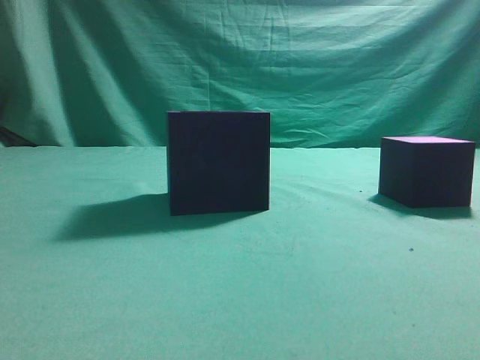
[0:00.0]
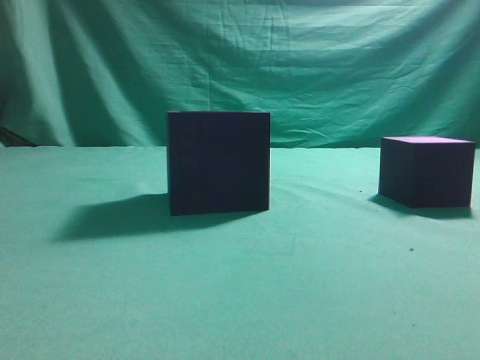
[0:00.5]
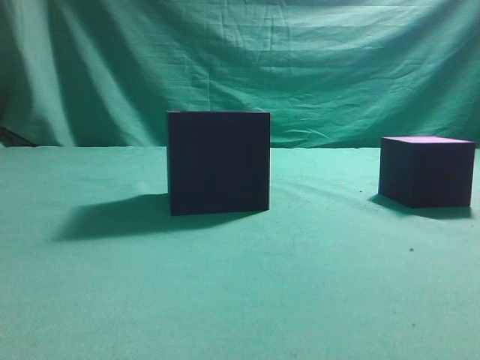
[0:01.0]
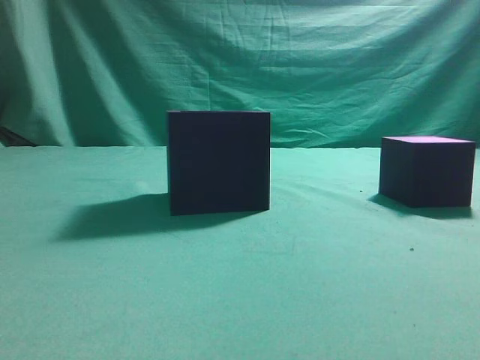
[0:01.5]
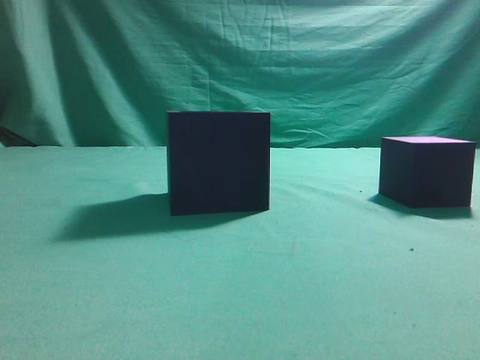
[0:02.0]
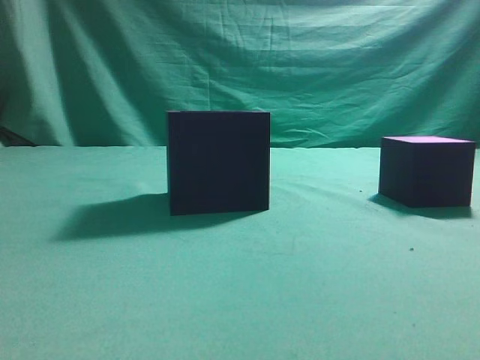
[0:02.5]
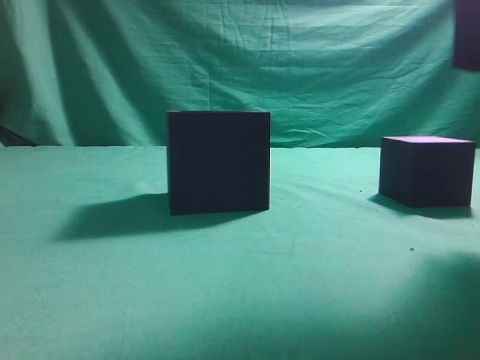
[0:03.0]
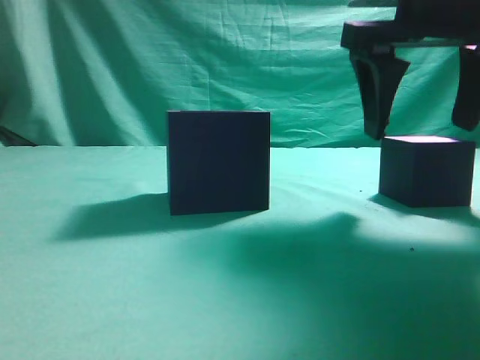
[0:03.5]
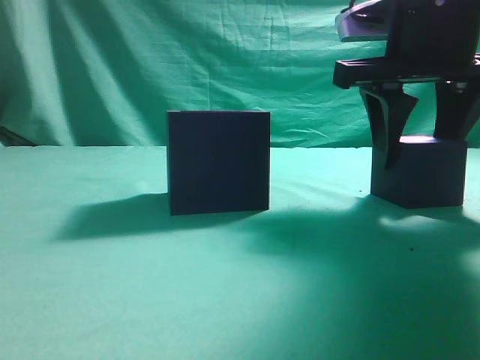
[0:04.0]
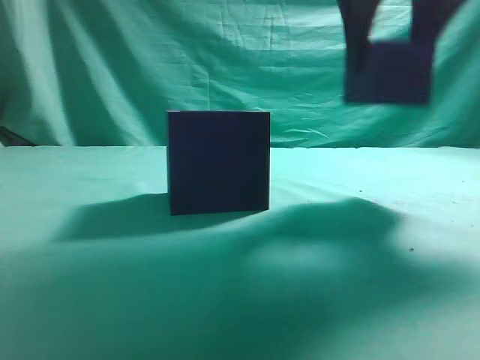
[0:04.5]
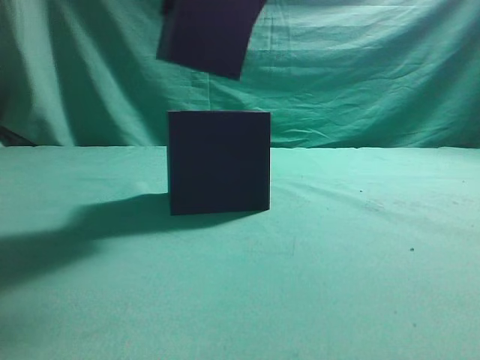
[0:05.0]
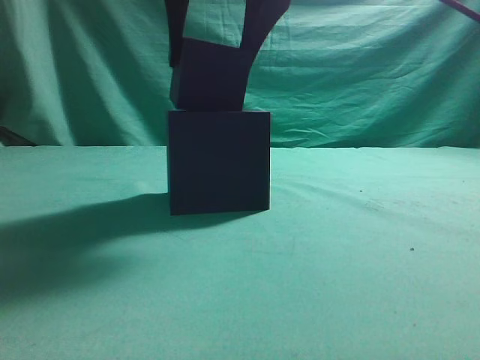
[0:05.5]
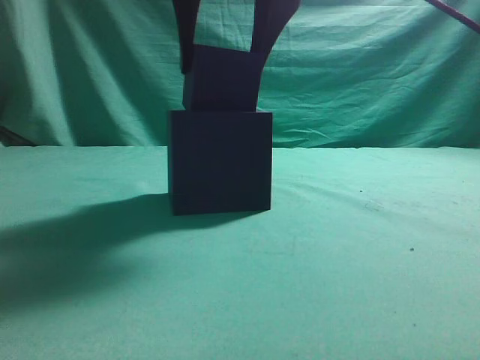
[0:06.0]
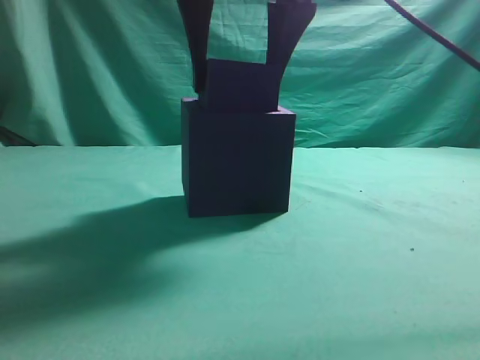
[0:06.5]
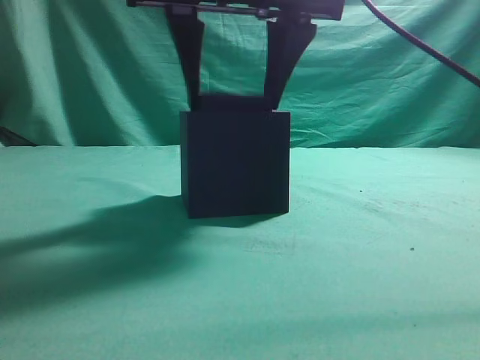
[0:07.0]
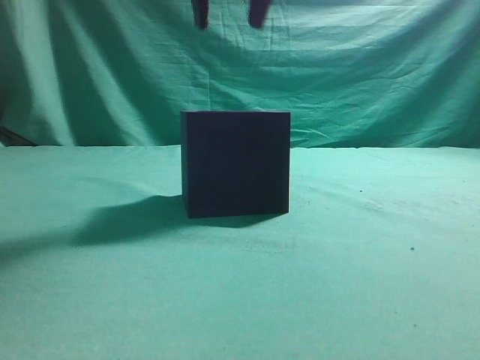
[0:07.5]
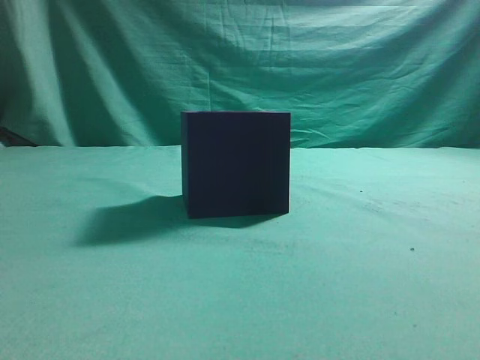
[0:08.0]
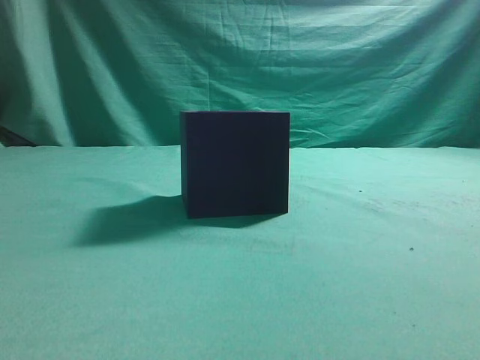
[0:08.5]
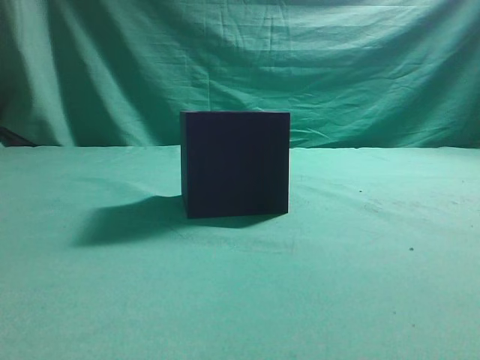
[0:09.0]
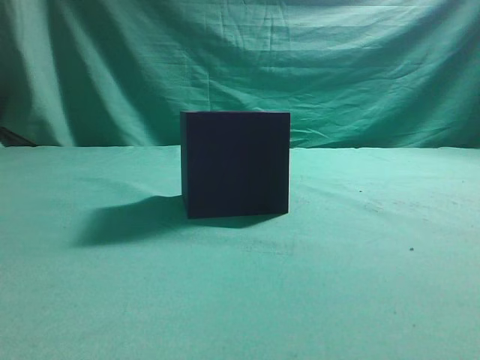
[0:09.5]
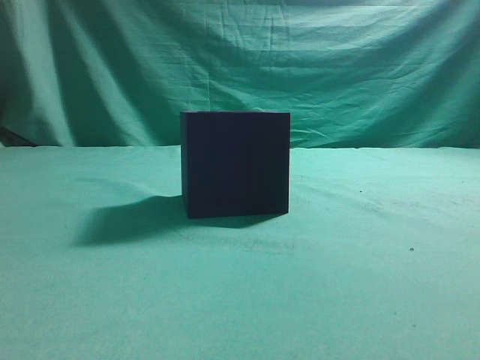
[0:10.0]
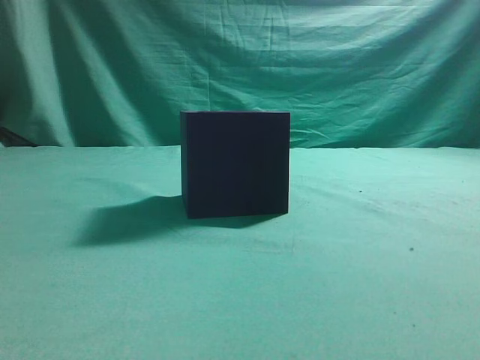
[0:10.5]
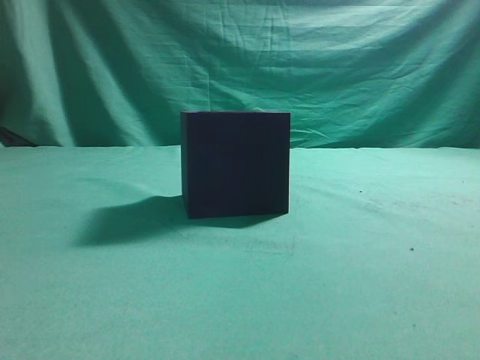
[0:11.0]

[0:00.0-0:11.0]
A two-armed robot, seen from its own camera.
Task of the whole recording: pick up the cube block and place it into the cube groove.
Step, 0:00.0 to 0:04.0: Grasp the cube.
Step, 0:04.5 to 0:07.0: Place cube into the cube-shaped recess.
0:02.0 to 0:03.5: The right gripper travels forward and to the left by about 25 cm, and opens.
0:03.5 to 0:05.5: The right gripper heads to the left, covering about 15 cm.
0:05.5 to 0:07.5: The grippers make only small movements.
0:07.5 to 0:09.0: The right gripper travels to the right and backward by approximately 35 cm, and closes.
